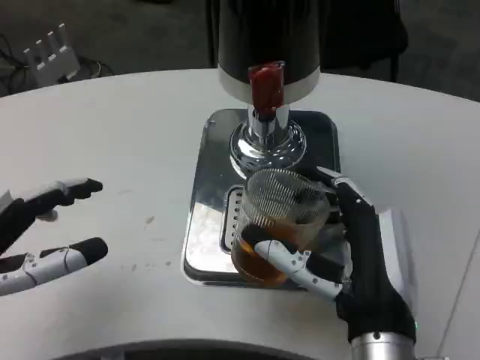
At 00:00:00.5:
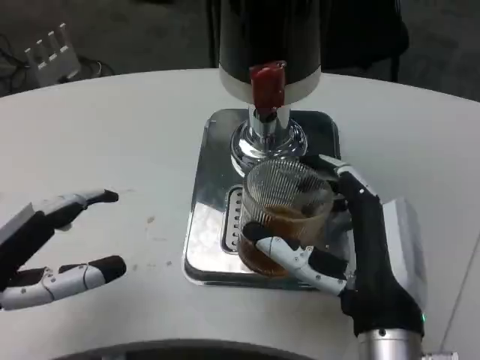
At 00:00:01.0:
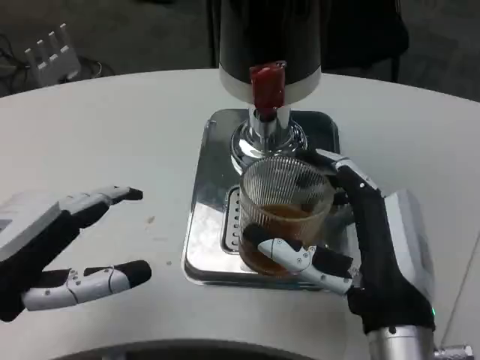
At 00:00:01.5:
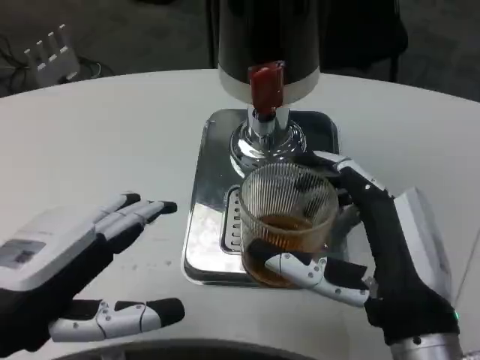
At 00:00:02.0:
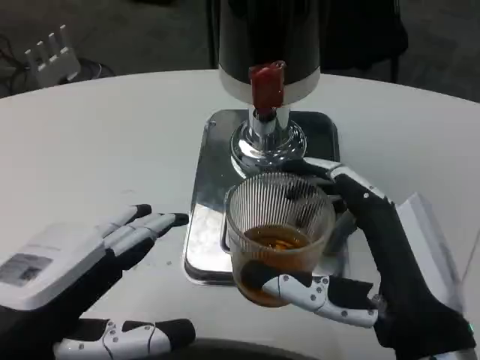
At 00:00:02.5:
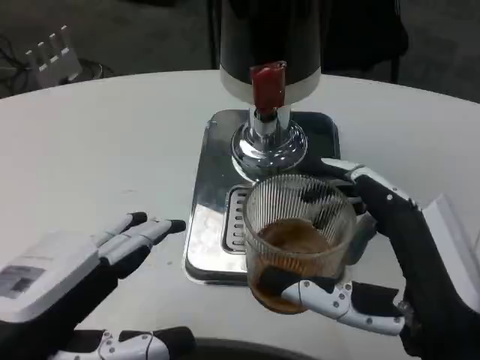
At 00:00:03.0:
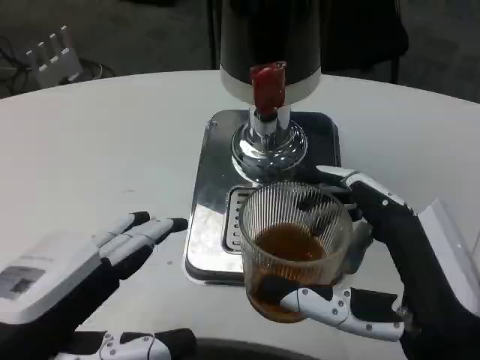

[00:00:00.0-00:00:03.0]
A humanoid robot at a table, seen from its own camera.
Task of the whole recording: Grasp the cup under the faucet to collect the drink, then remove the cup.
00:00:00.0 to 00:00:01.5: The left hand moves to the right, some 5 cm.

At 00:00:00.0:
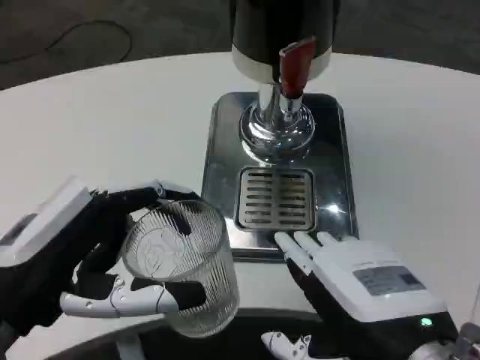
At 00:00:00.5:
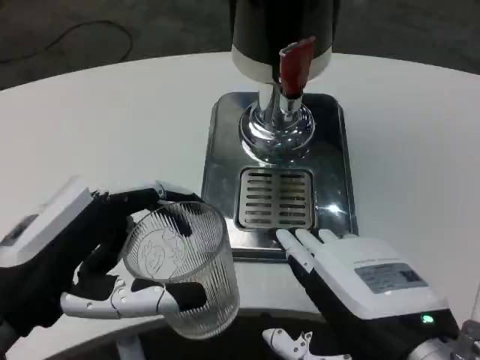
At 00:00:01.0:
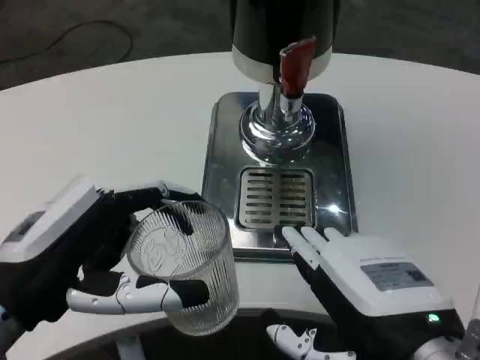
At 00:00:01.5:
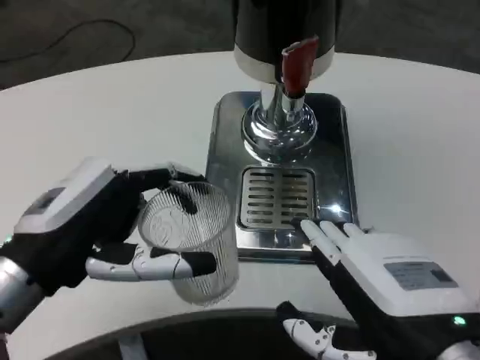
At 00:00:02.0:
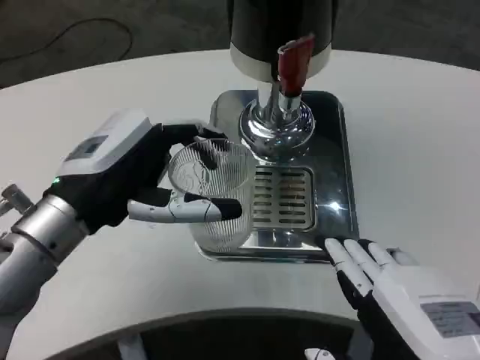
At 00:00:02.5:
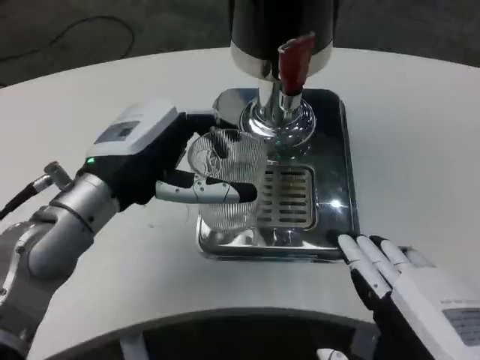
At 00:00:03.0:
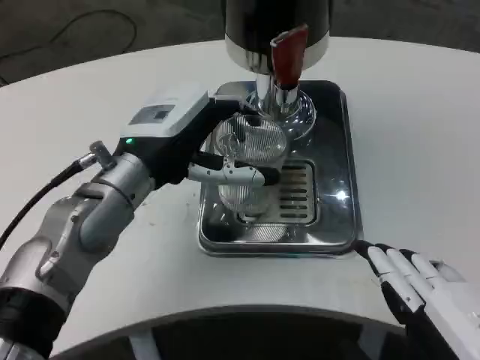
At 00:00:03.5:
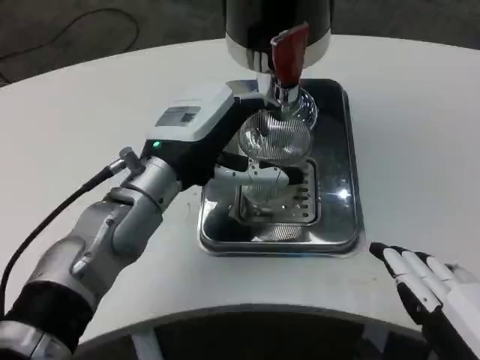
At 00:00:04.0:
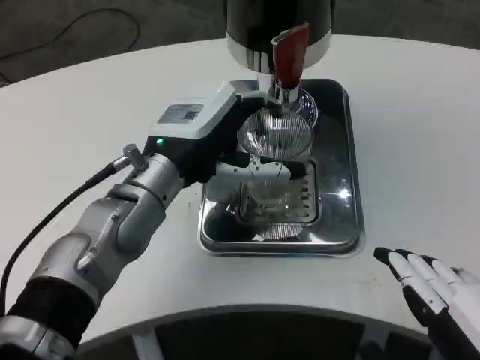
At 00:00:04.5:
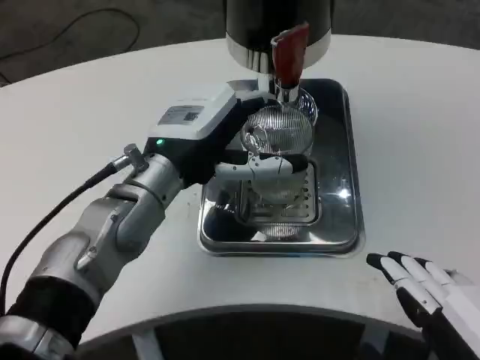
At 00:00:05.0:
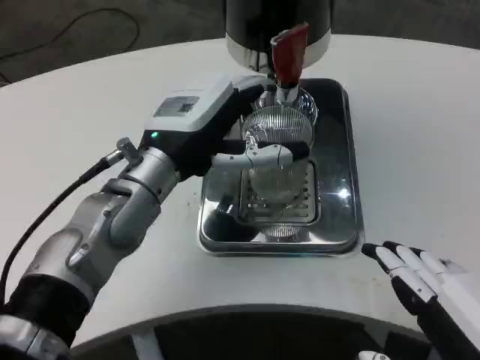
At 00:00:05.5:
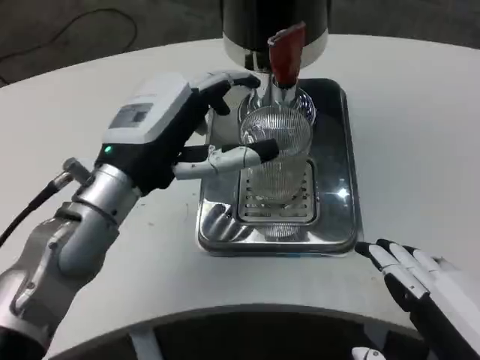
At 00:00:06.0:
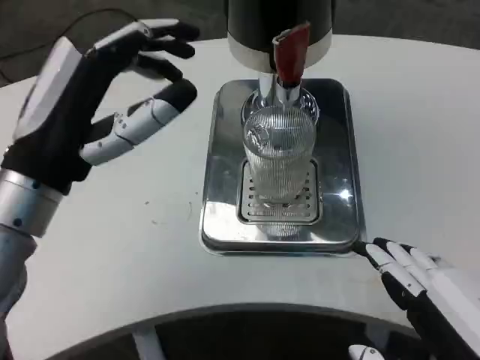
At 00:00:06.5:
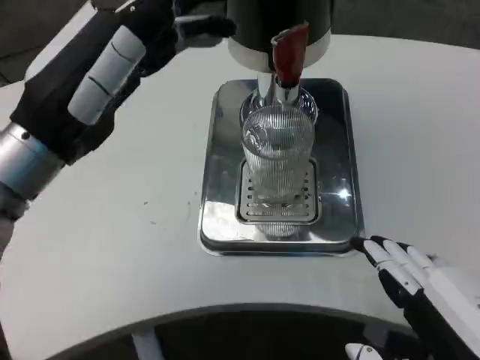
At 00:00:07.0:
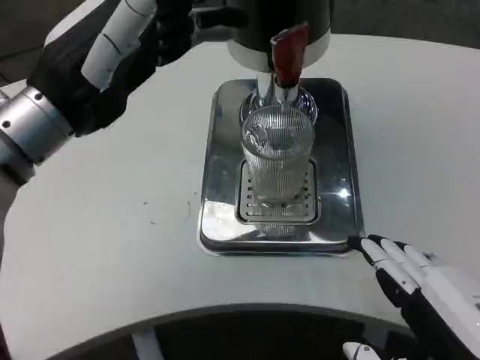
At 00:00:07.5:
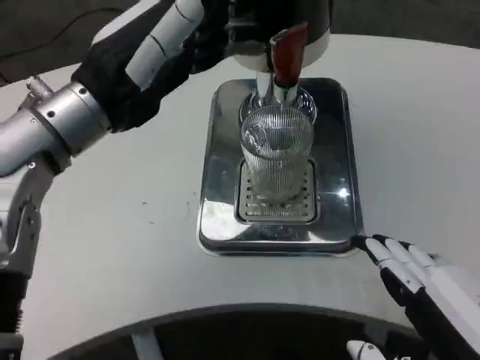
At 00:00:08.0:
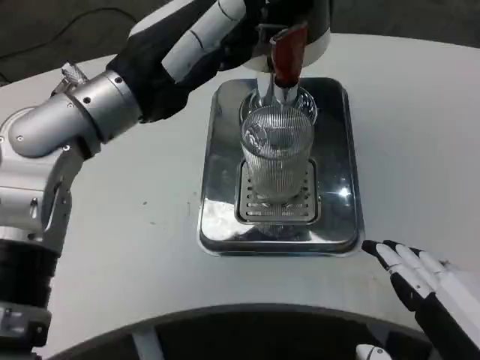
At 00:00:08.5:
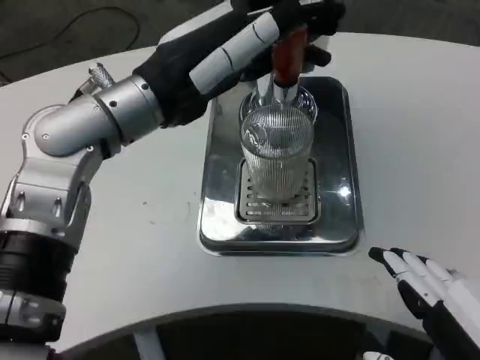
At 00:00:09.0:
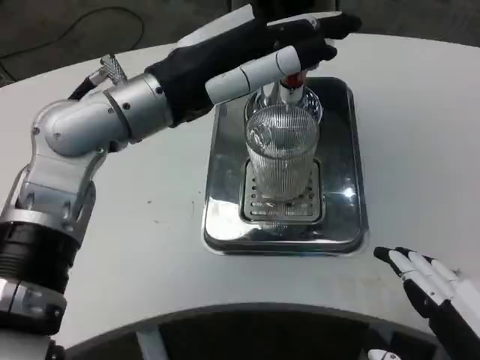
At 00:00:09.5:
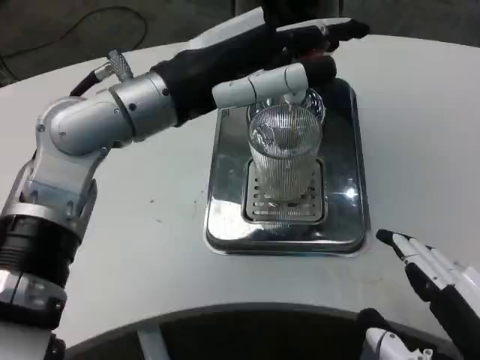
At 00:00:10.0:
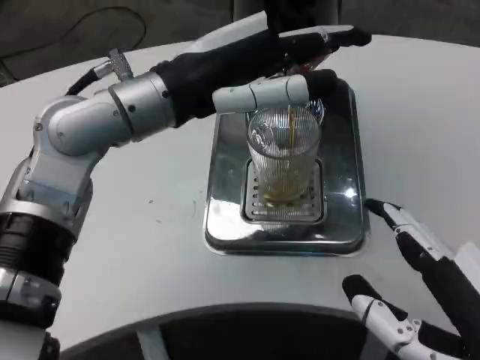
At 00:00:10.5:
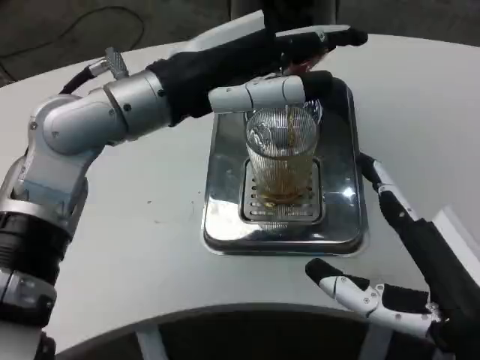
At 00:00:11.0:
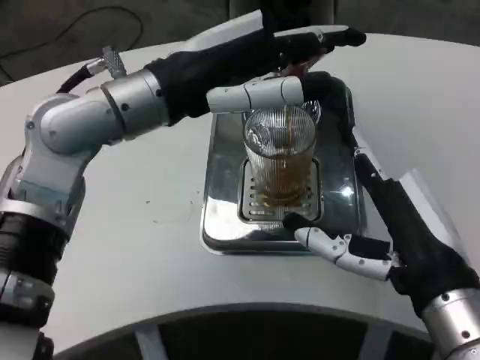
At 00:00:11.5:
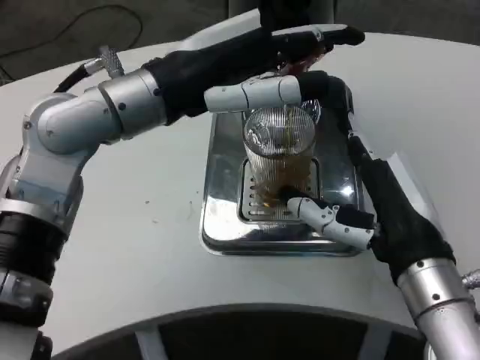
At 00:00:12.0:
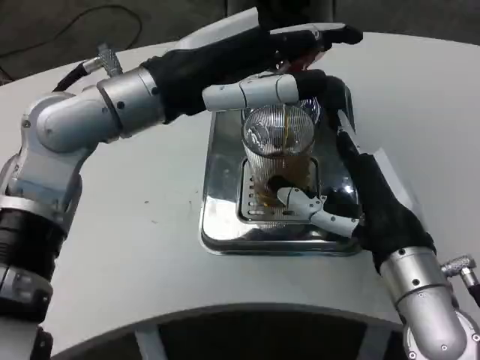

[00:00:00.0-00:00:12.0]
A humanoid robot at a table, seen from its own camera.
Task of the whole recording: Grasp the cup under the faucet to collect the drink, then remove the cup.
00:00:00.0 to 00:00:02.0: The left hand heads forward, covering some 10 cm.
00:00:02.0 to 00:00:04.0: The left hand shifts some 10 cm forward and to the right.
00:00:04.0 to 00:00:06.0: The left hand heads backward and to the left, covering approximately 10 cm.
00:00:06.0 to 00:00:08.0: The left hand travels upward and forward by some 10 cm.
00:00:10.0 to 00:00:12.0: The right hand moves forward, some 15 cm.

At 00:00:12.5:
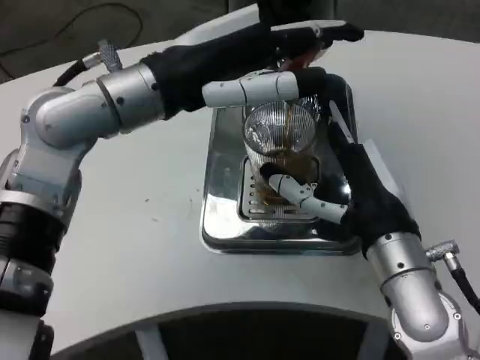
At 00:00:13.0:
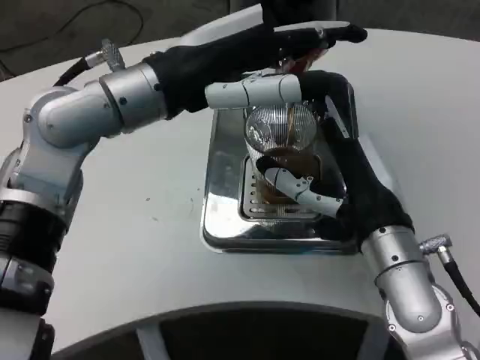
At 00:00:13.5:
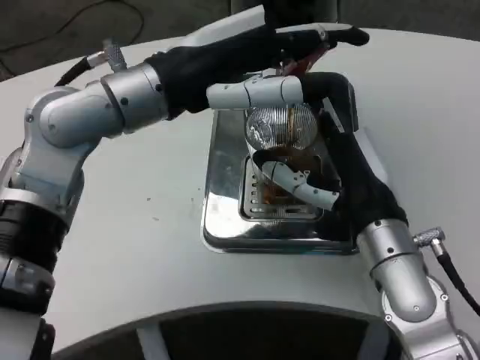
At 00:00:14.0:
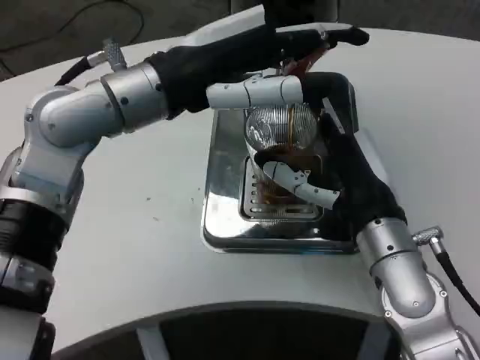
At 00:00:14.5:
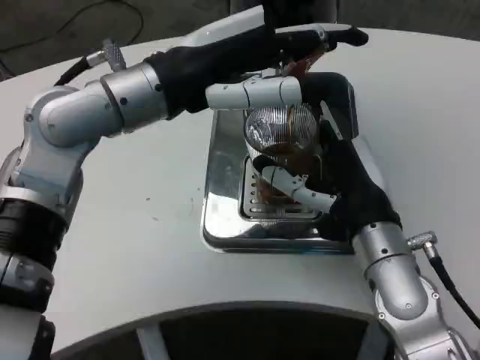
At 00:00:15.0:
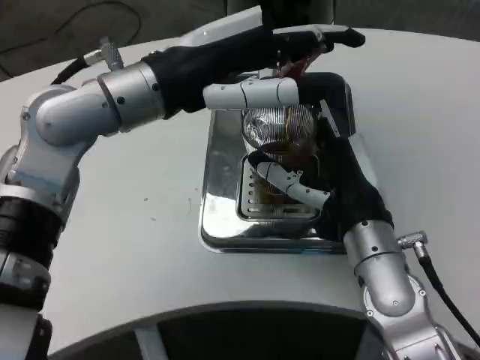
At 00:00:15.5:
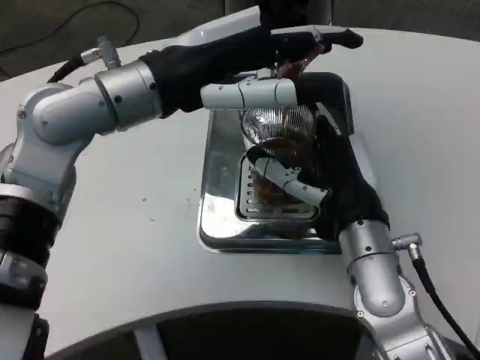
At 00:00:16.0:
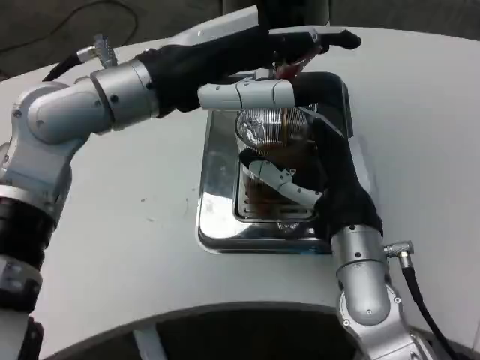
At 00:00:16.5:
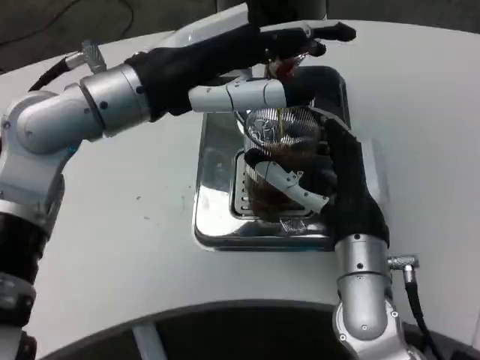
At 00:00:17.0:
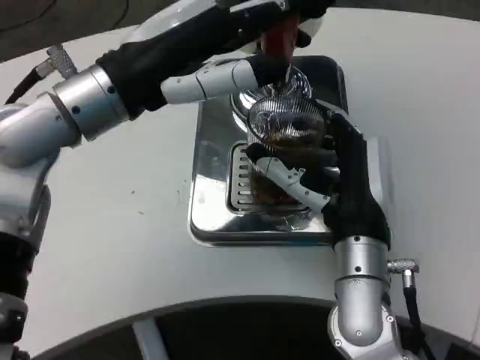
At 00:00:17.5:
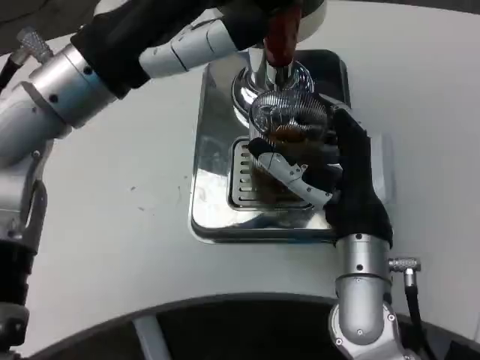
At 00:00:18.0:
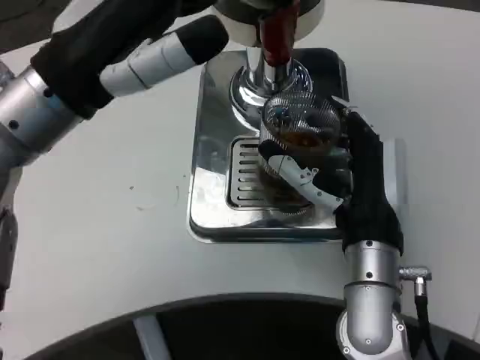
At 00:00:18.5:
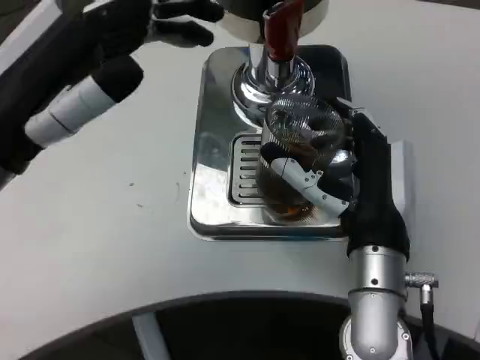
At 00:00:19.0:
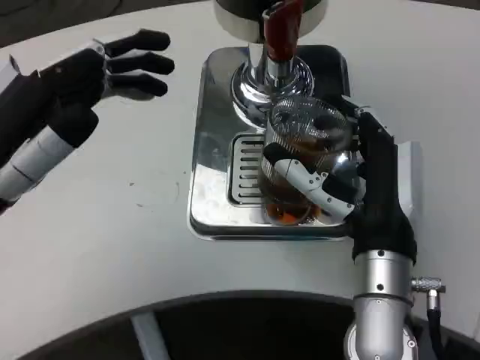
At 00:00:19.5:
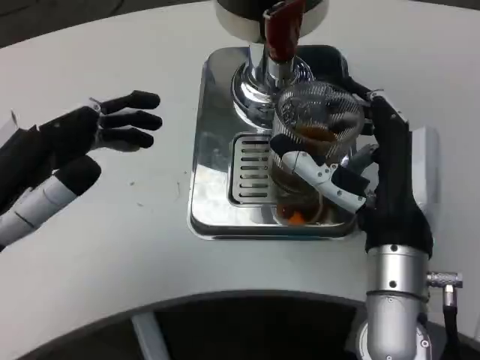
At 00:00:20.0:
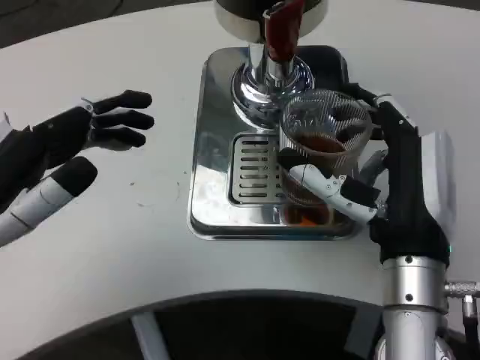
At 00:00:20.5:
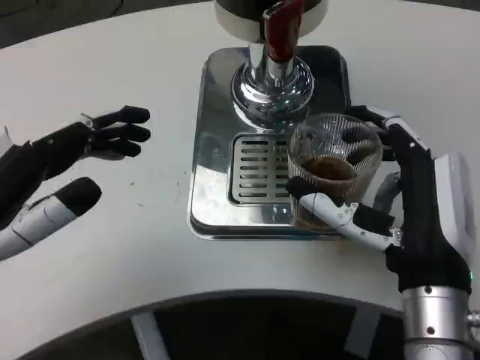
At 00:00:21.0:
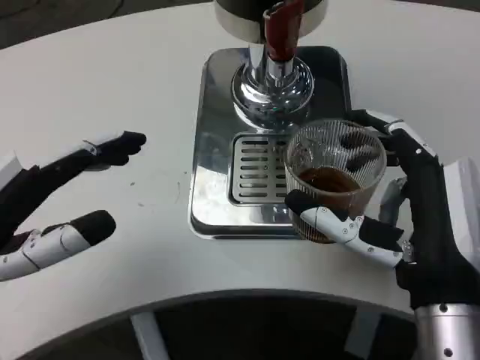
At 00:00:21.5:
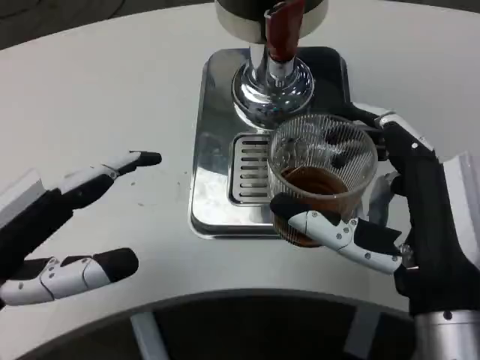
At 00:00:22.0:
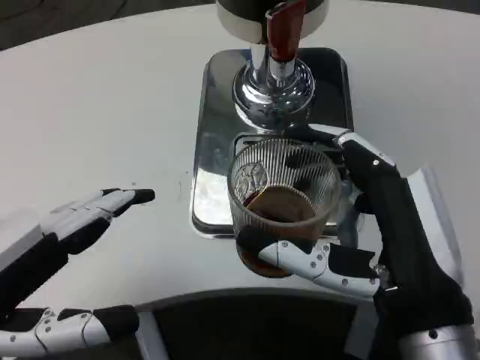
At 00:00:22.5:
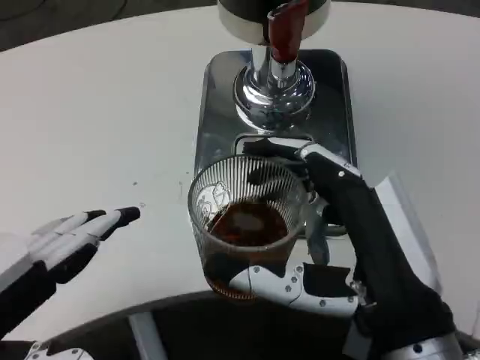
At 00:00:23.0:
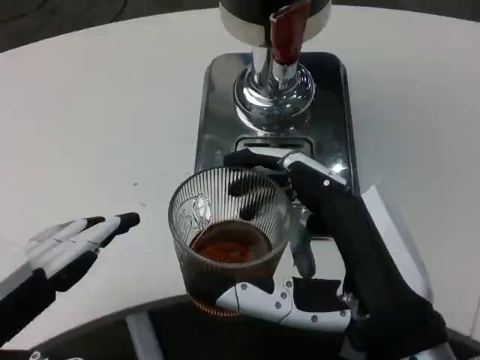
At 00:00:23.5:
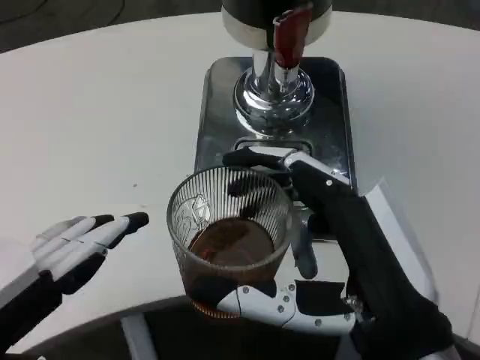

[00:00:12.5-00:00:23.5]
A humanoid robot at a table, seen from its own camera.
Task of the whole recording: Grasp the cup under the faucet to collect the drink, then remove the cup.
00:00:12.5 to 00:00:14.5: The hands make only small movements.
00:00:16.0 to 00:00:18.0: The left hand heads backward, covering some 5 cm.
00:00:18.0 to 00:00:20.0: The left hand goes roughly 15 cm downward, backward and to the left.
00:00:20.0 to 00:00:21.5: The right hand moves backward, about 5 cm.
00:00:21.5 to 00:00:23.5: The left hand moves backward, approximately 5 cm.
